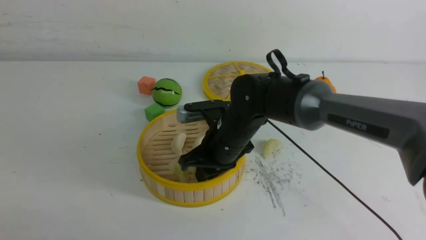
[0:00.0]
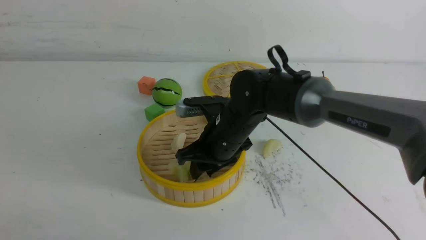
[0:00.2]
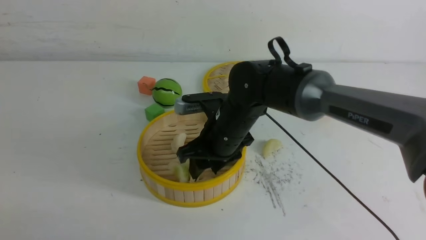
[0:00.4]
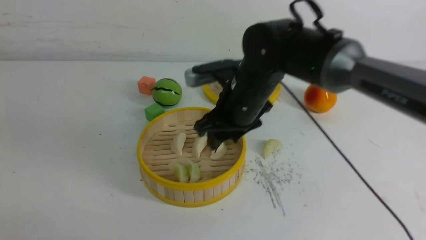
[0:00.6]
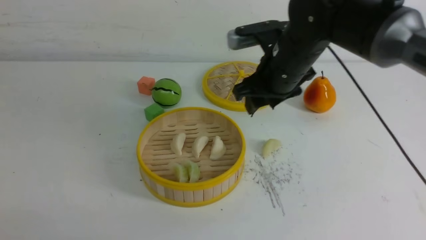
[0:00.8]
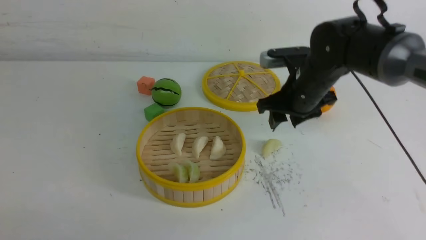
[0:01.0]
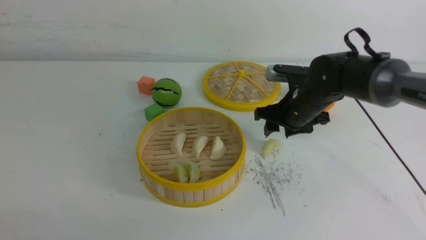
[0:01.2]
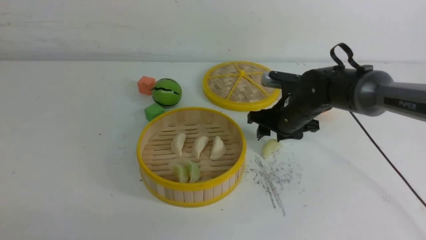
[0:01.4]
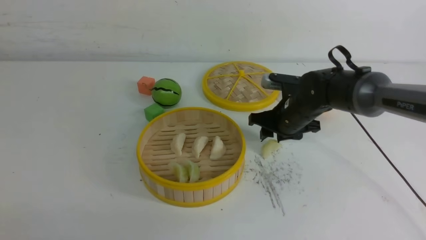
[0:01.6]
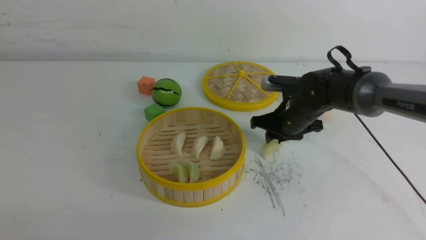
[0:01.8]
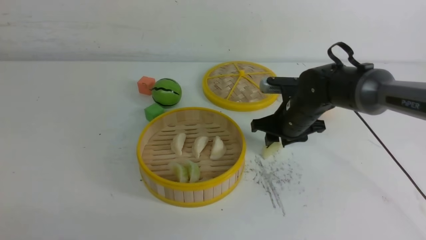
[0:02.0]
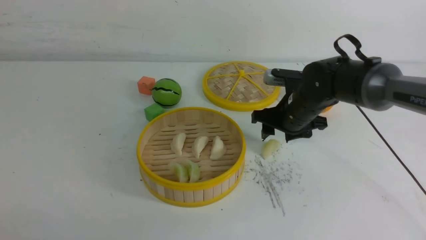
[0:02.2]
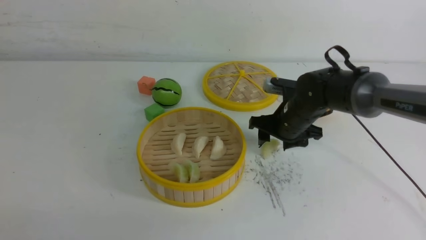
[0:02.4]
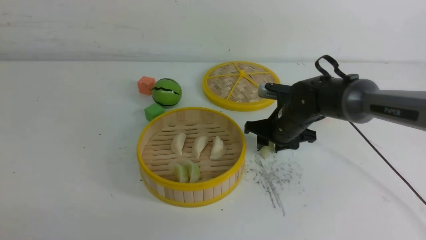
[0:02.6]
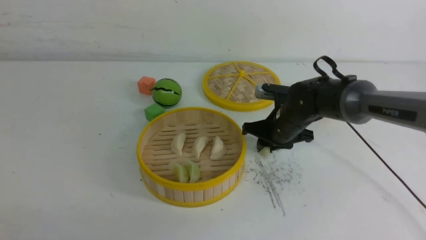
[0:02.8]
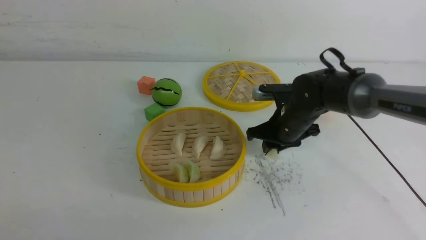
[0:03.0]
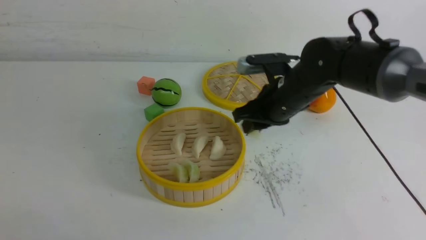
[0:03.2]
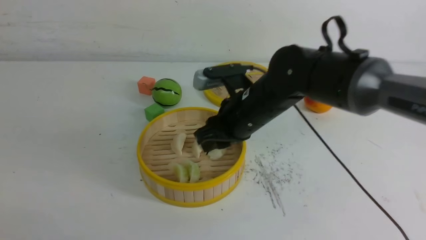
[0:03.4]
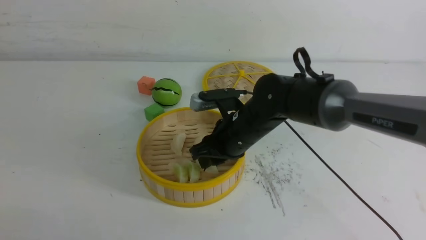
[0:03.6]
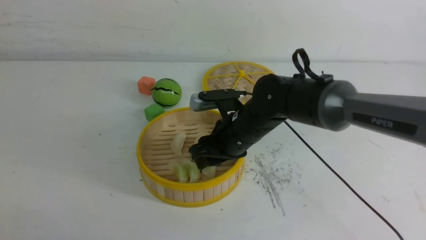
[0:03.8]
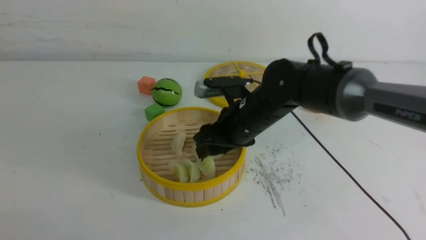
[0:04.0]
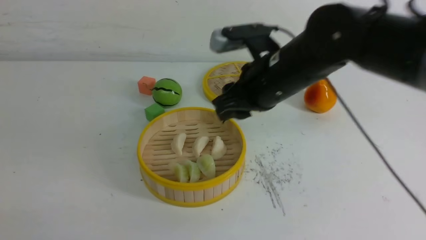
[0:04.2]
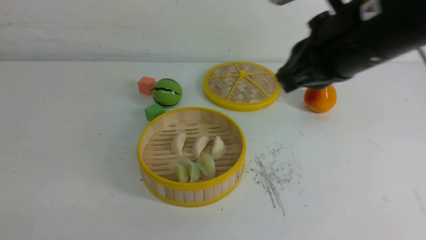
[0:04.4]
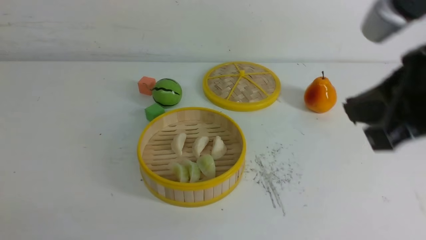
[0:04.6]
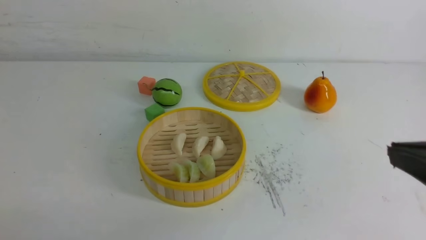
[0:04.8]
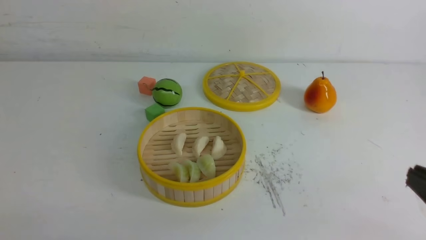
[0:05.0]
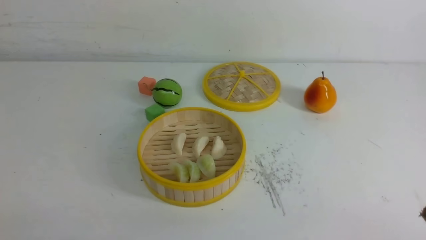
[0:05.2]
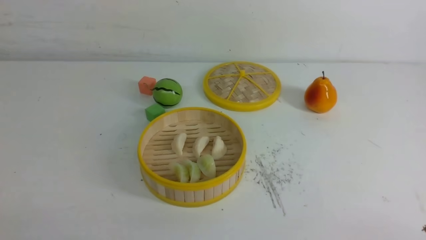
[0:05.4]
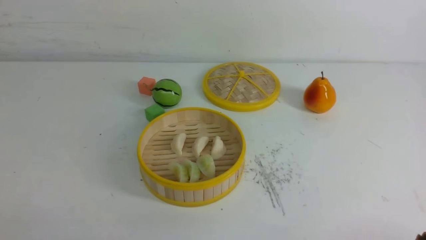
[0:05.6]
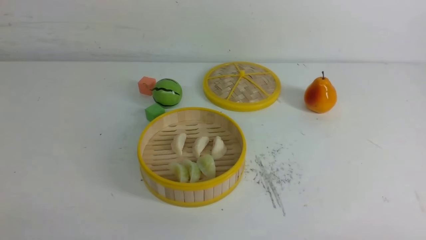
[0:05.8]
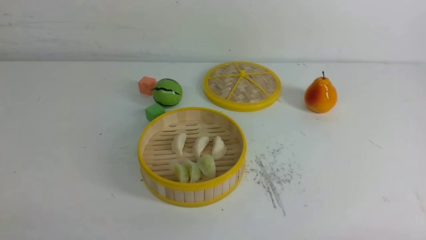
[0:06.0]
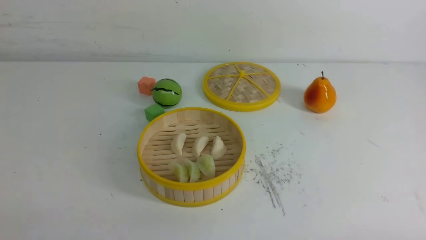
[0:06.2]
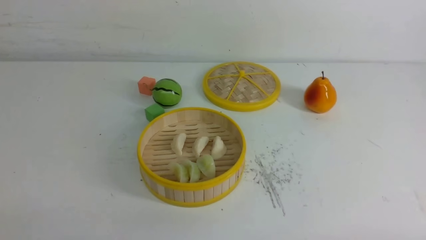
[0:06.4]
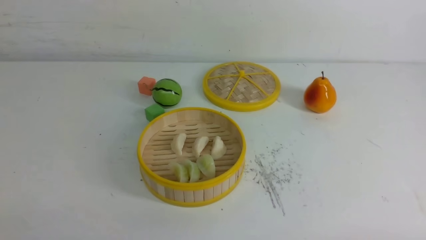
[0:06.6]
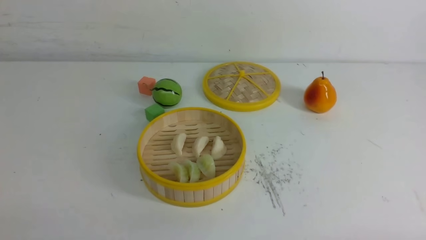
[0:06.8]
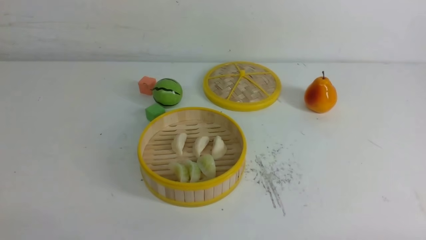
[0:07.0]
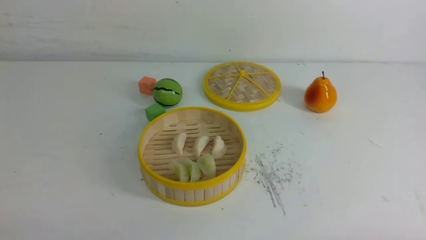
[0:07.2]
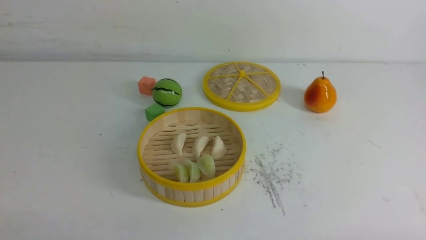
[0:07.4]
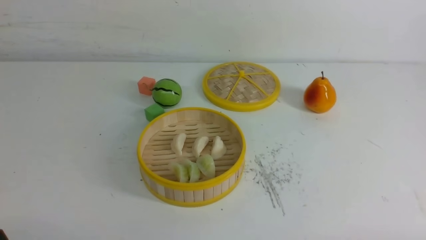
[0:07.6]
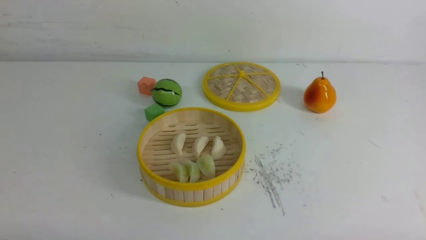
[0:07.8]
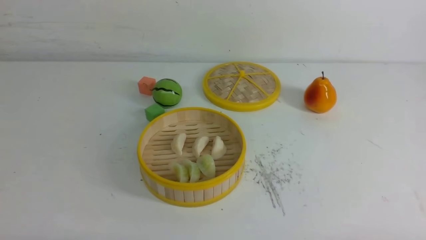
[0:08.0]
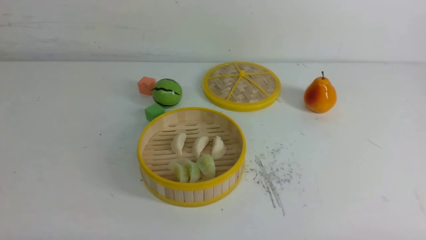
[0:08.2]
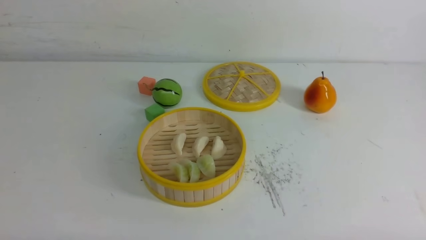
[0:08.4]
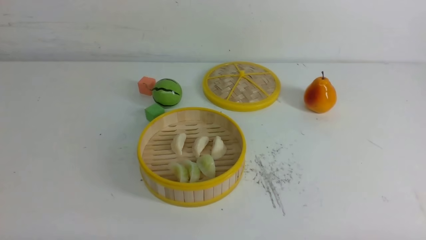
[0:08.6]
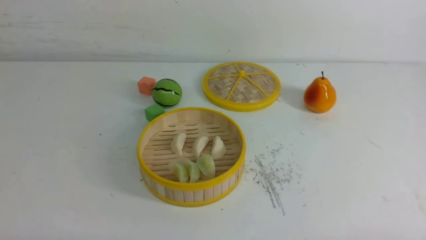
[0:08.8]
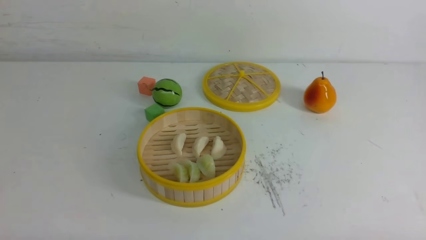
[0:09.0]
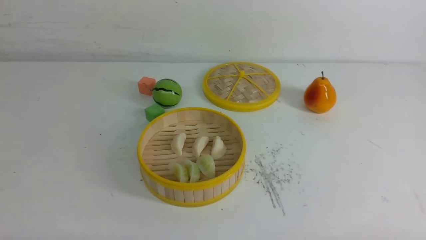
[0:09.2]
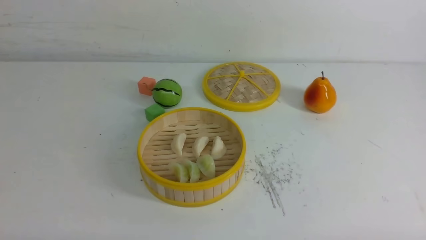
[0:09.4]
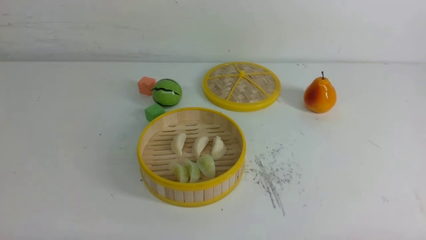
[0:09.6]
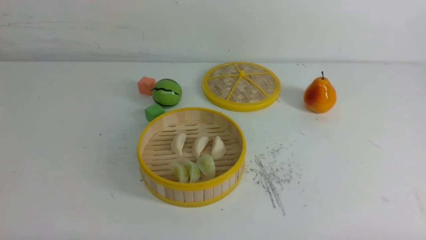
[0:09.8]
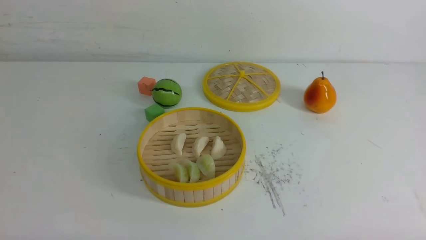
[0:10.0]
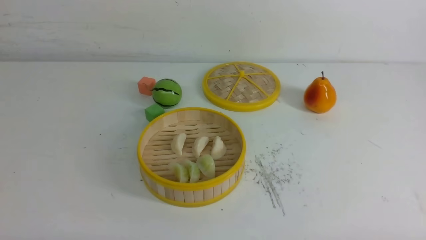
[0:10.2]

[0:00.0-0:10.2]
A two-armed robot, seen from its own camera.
Task of the whole recording: put the dumplings into the steamer on the white table.
Step, 0:00.2 to 0:03.0: use the right arm to grab a dumpling.
Step, 0:03.2 to 0:04.0: use the right arm to put the dumpling into the steamer.
0:00.0 to 0:01.4: The right gripper shifts some 15 cm to the right and forward, and opens.
0:01.4 to 0:03.0: The grippers move only a little.
0:03.0 to 0:04.4: The right gripper travels upward and backward by some 25 cm.
0:04.4 to 0:05.8: The right gripper shifts about 35 cm downward, backward and to the right.
0:08.8 to 0:10.2: Both grippers stay about where they are.
